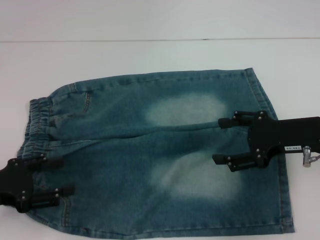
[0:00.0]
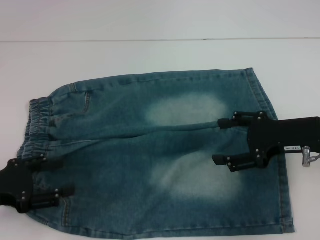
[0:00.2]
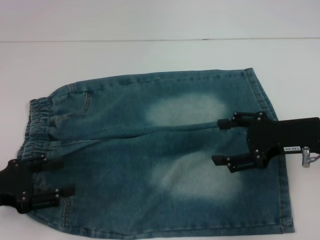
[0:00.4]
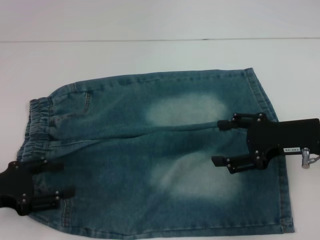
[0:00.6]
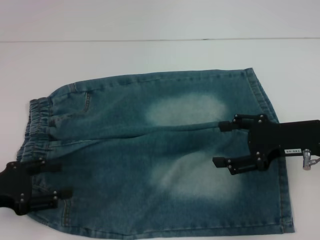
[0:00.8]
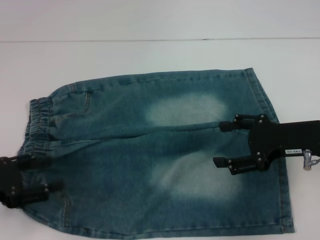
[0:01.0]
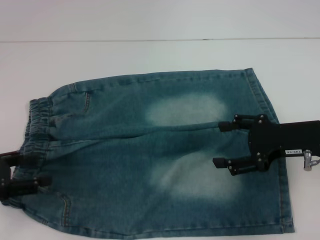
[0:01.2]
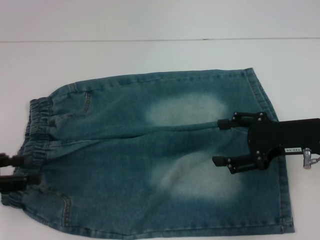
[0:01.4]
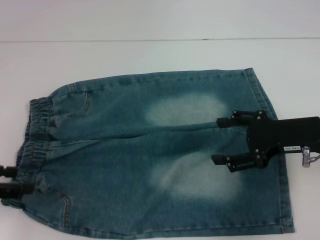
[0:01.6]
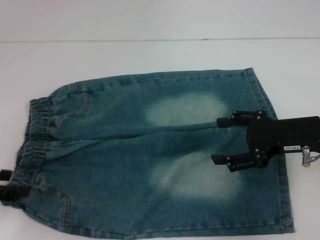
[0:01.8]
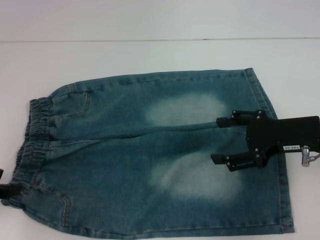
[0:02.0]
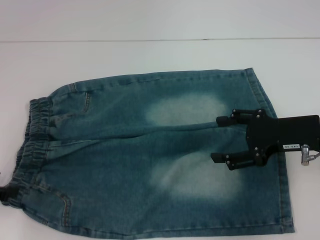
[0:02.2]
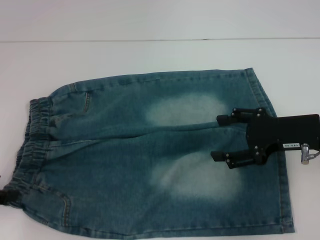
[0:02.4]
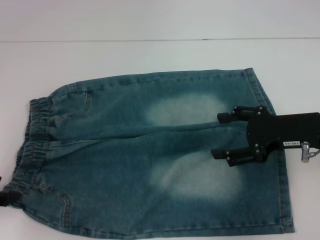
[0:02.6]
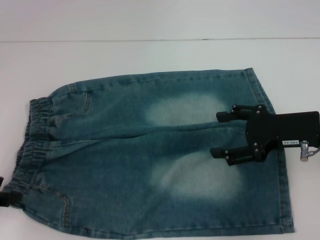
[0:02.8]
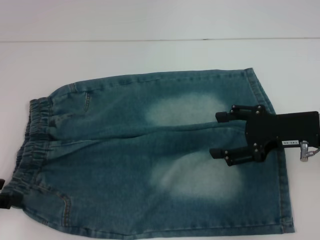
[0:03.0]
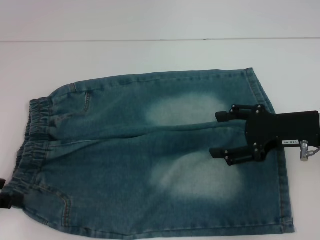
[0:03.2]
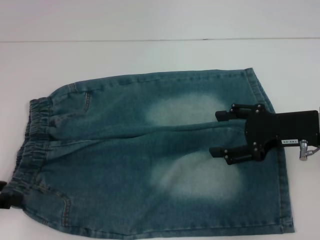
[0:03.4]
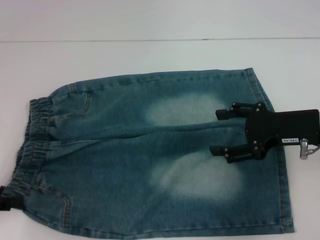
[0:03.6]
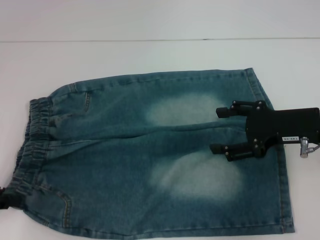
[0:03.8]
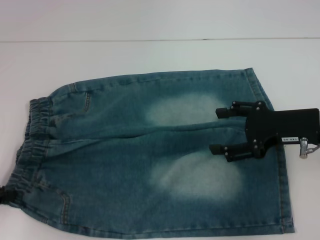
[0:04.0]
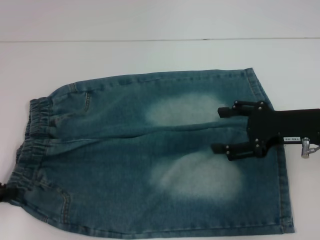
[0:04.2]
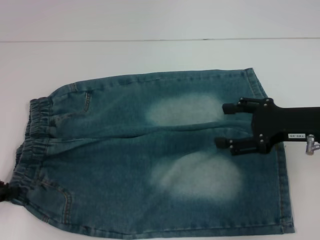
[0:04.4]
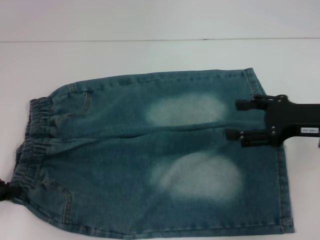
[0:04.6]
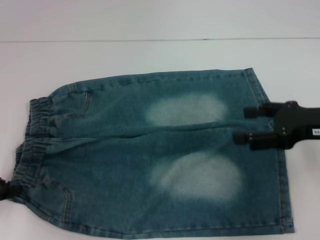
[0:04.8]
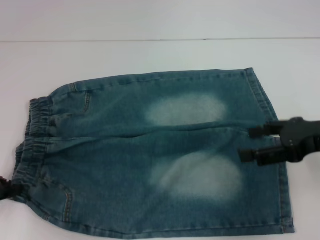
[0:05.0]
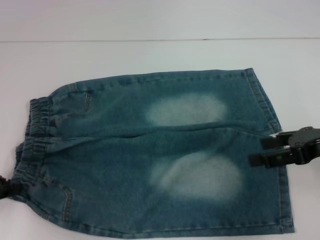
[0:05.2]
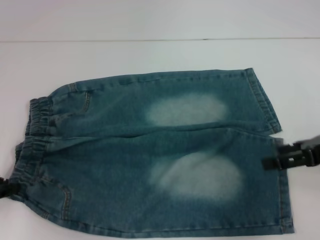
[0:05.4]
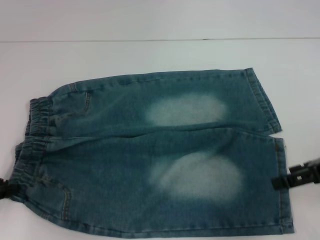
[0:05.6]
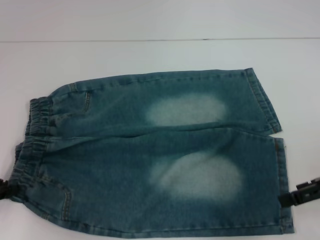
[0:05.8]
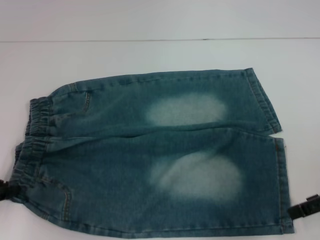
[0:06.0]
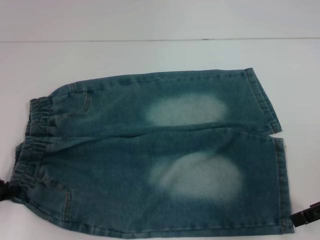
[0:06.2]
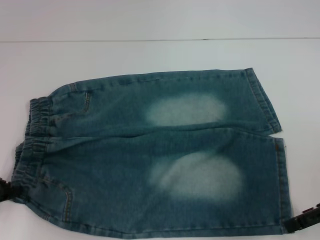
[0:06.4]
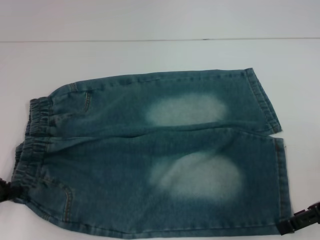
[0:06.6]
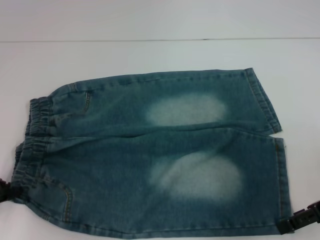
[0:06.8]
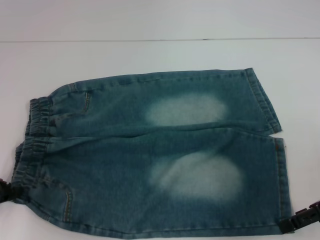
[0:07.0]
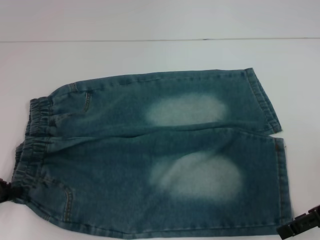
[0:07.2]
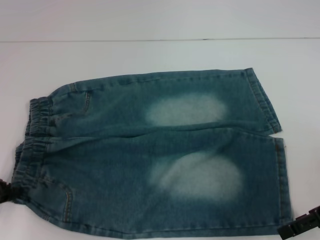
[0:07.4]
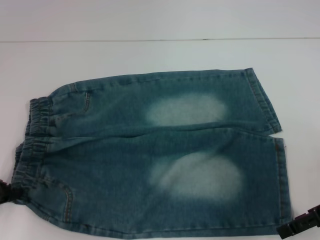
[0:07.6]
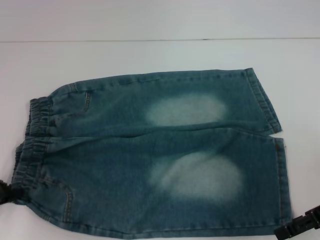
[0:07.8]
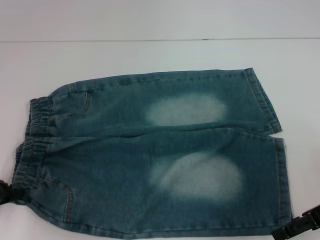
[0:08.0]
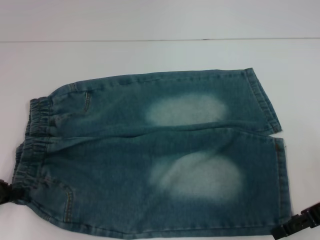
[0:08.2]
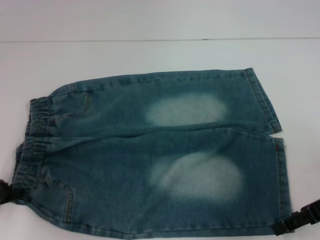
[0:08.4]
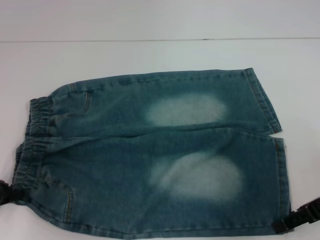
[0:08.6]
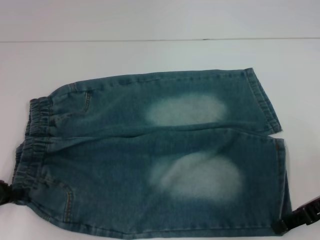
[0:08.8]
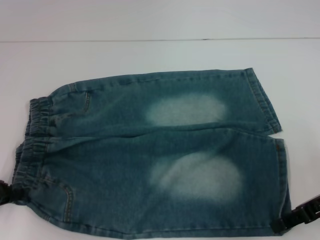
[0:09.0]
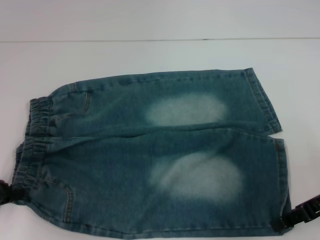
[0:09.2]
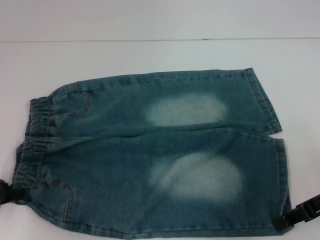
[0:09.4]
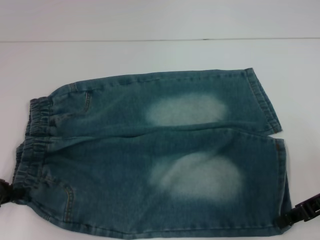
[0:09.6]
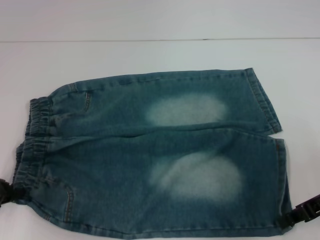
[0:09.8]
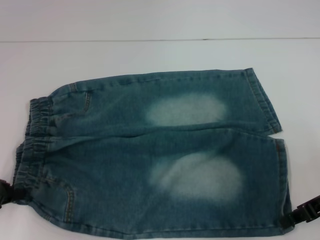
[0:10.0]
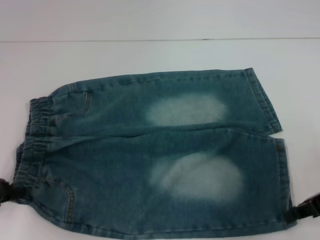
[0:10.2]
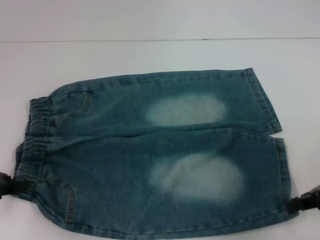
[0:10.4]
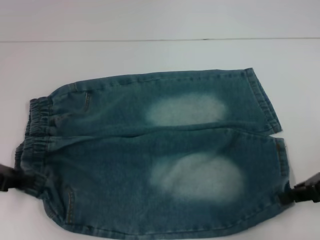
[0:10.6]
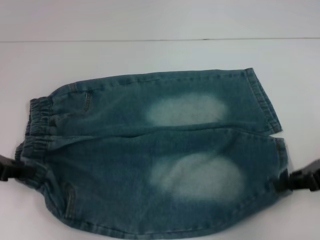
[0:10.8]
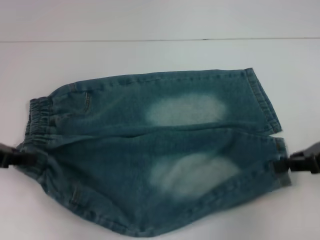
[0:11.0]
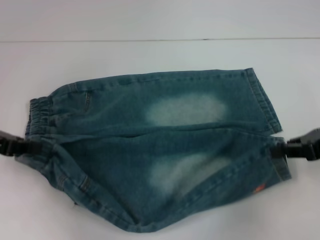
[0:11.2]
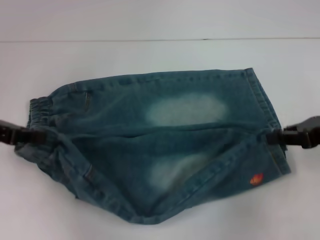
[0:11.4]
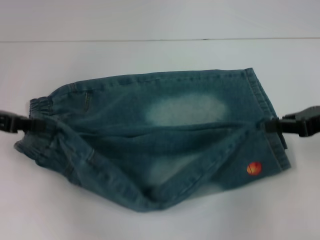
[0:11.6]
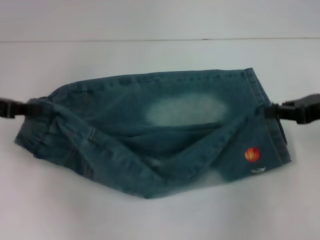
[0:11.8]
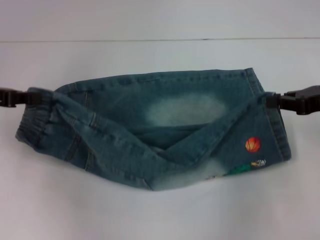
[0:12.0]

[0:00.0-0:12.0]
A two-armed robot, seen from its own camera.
Step, 0:00.0 to 0:04.8: Hold the lower left waistband with your left hand.
Step, 0:05.2 to 0:09.4: Grab the lower right pant leg with your right hand.
0:00.0 to 0:01.6: The left gripper ends up approximately 5 cm from where it was.
0:01.6 to 0:03.0: The grippers stay close to where they were, moving slightly.
0:03.0 to 0:04.4: The left gripper closes.
0:04.4 to 0:06.0: The right gripper moves to the right, some 5 cm.
0:06.0 to 0:07.6: The grippers move only a little.
0:07.6 to 0:09.0: The right gripper closes up.
0:09.0 to 0:10.4: The right gripper closes its fingers.
0:10.4 to 0:12.0: The right gripper travels forward by roughly 5 cm, while the left gripper goes about 10 cm upward and forward.

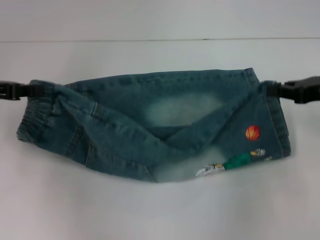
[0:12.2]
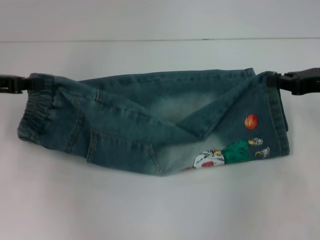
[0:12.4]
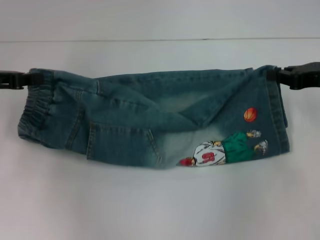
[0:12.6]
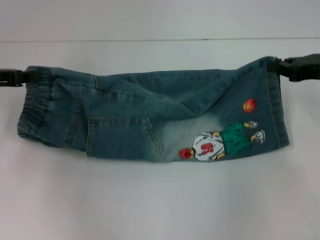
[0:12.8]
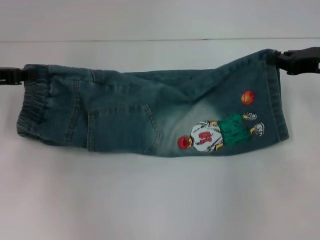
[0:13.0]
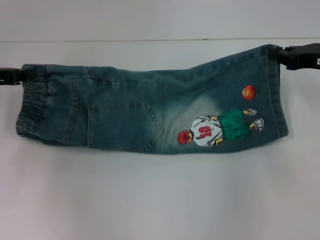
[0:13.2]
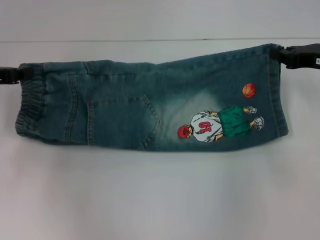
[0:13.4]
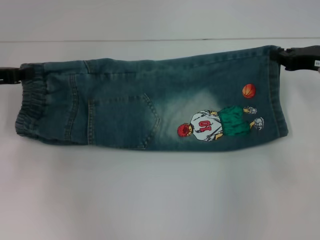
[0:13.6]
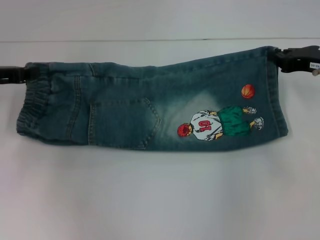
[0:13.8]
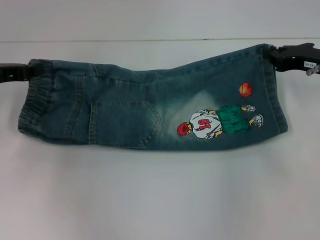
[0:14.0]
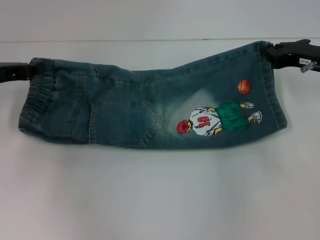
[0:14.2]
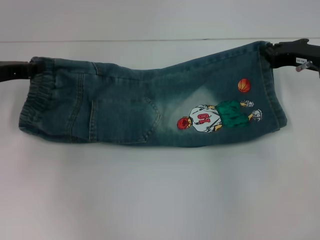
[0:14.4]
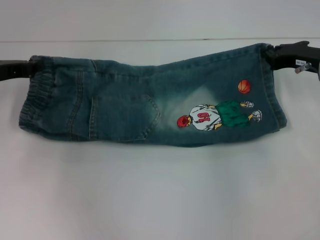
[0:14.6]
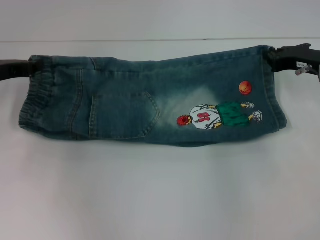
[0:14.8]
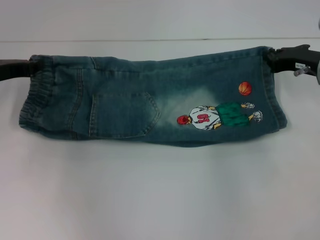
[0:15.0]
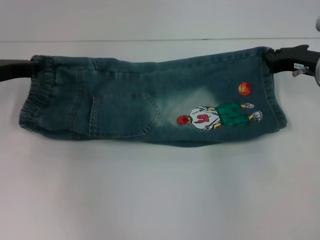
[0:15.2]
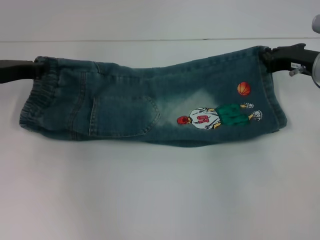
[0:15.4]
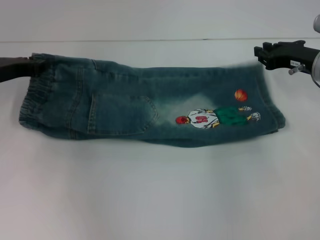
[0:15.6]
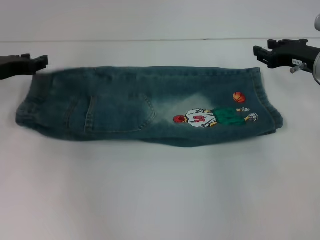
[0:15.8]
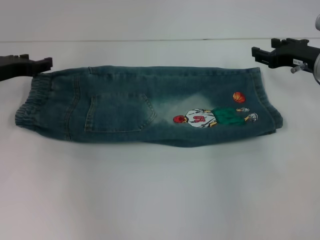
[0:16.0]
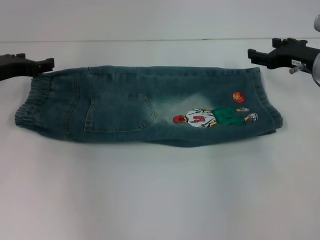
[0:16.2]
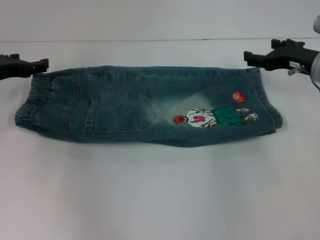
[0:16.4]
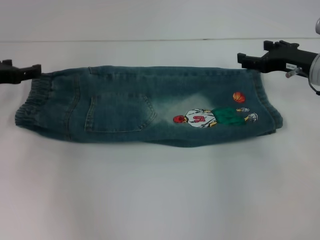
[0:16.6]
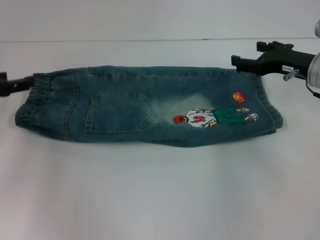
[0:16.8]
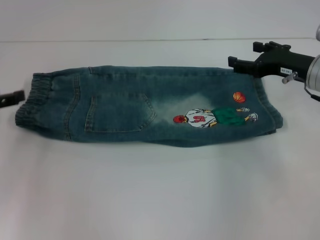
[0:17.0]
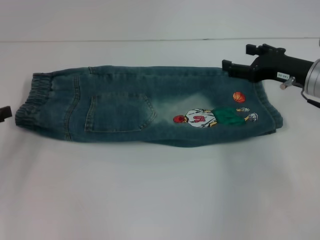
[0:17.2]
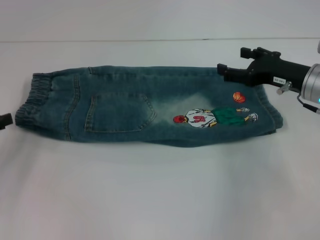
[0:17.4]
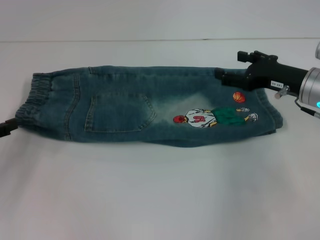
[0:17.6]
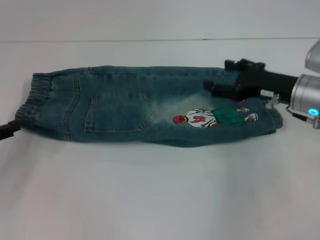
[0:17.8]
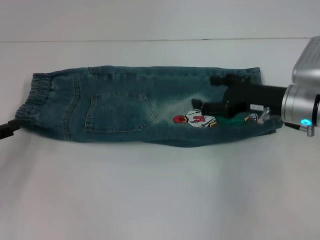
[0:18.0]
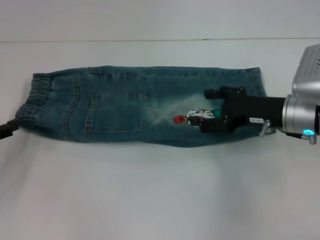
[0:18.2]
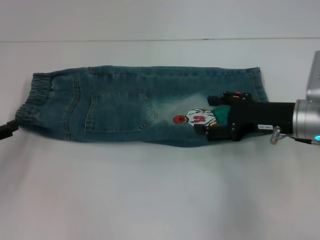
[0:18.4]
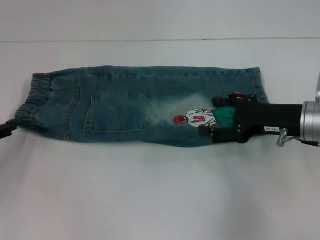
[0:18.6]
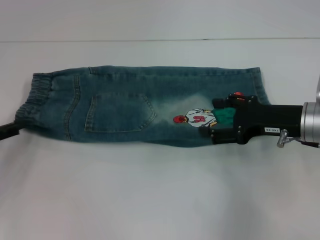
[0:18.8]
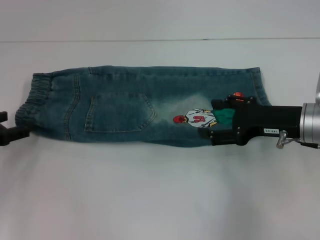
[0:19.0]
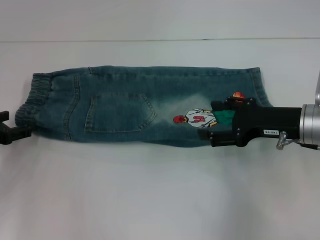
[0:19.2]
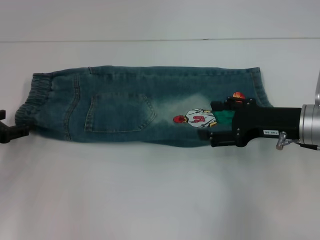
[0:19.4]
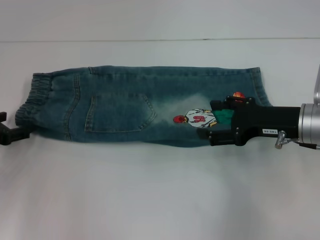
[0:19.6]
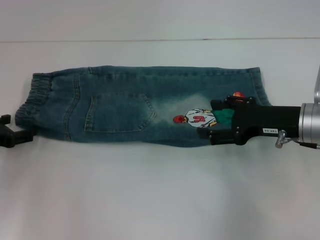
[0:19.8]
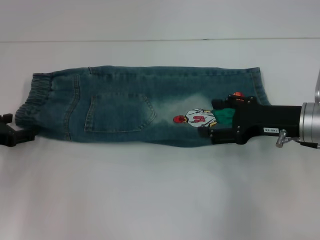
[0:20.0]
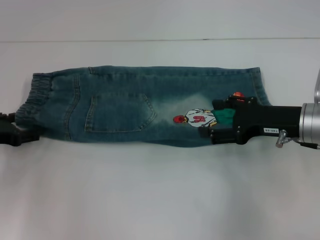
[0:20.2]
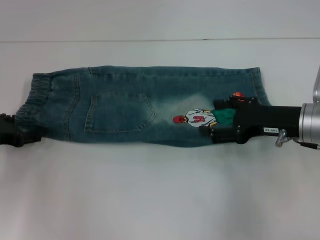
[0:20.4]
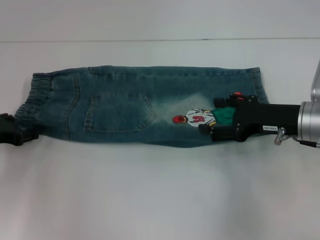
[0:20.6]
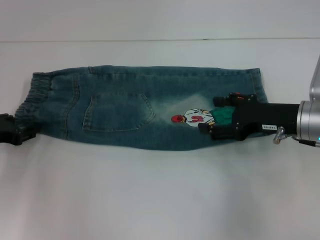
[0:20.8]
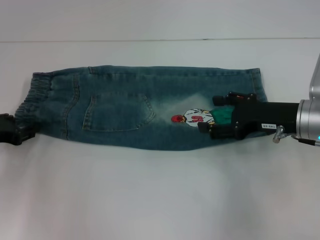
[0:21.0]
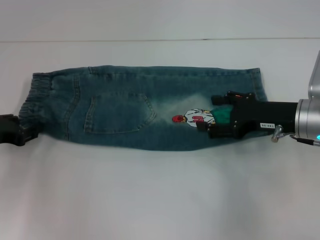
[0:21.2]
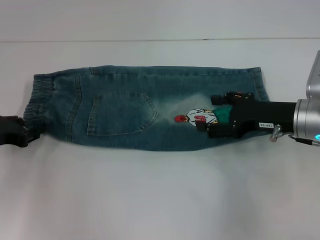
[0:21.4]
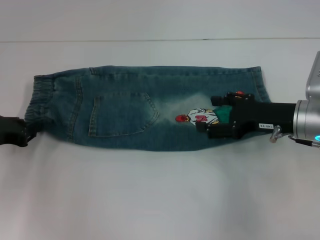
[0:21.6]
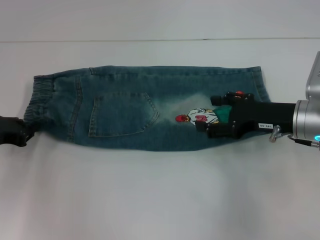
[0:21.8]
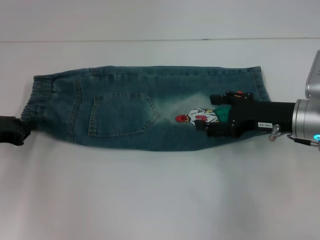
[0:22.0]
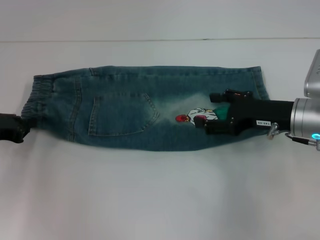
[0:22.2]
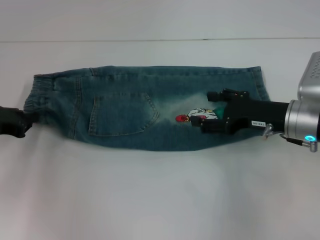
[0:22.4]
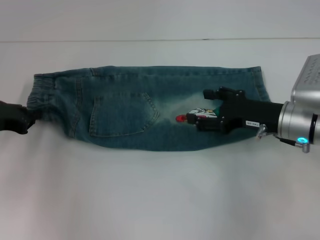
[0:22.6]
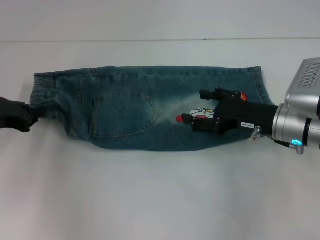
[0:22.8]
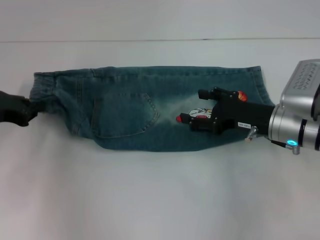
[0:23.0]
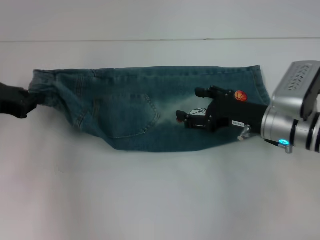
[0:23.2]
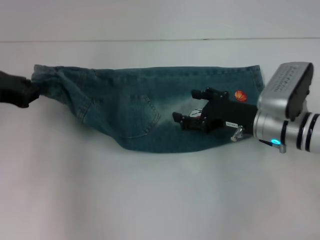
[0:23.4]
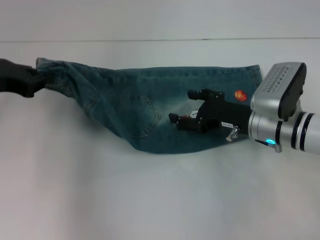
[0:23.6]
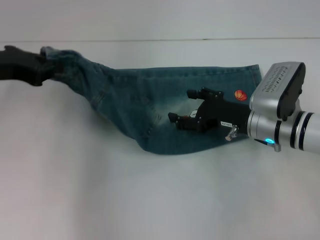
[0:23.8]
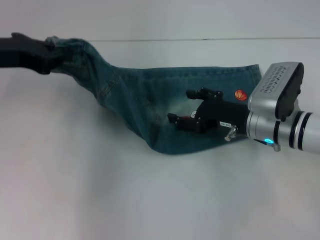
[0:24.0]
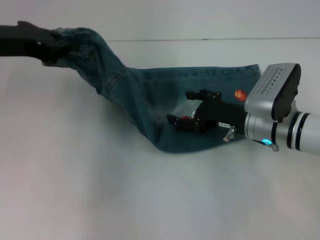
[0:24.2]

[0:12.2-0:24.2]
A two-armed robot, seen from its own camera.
Step, 0:12.2 to 0:17.2: Fold upward with your right hand.
Step, 0:17.4 to 0:20.4: Hold the waistband with your left hand.
0:12.2 to 0:13.8: The right gripper shifts by roughly 5 cm.
0:13.8 to 0:15.2: The grippers move only a little.
0:15.2 to 0:16.6: The left gripper opens up, while the right gripper opens.
0:16.6 to 0:18.2: The right gripper heads backward, covering approximately 5 cm, while the left gripper is displaced backward by some 10 cm.
0:18.2 to 0:19.8: The left gripper ends up approximately 5 cm from where it was.
0:19.8 to 0:21.2: The left gripper closes its fingers.
0:21.2 to 0:22.6: The left gripper closes up.
0:22.6 to 0:24.2: The left gripper moves upward and to the right, about 15 cm.
